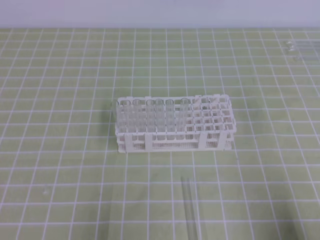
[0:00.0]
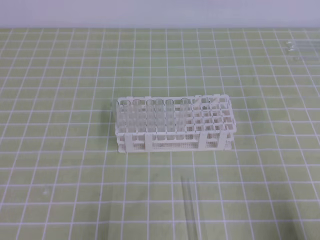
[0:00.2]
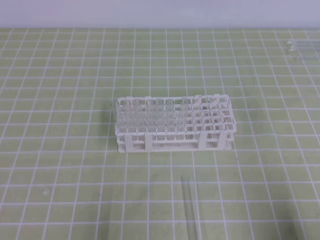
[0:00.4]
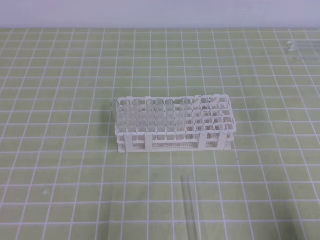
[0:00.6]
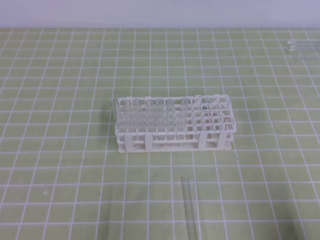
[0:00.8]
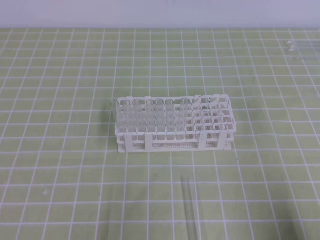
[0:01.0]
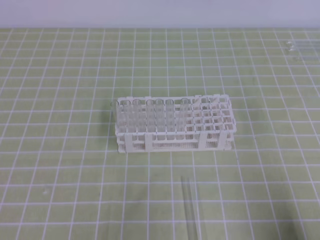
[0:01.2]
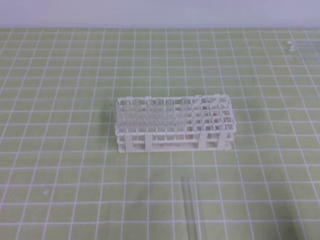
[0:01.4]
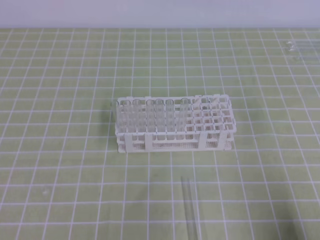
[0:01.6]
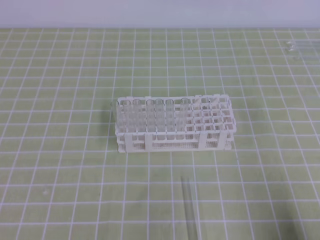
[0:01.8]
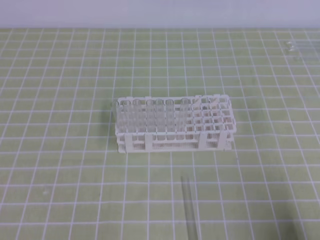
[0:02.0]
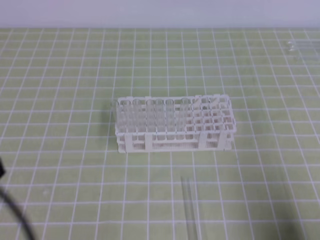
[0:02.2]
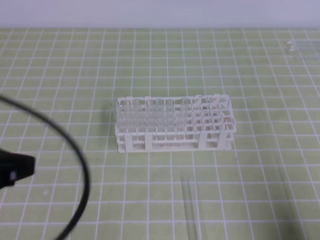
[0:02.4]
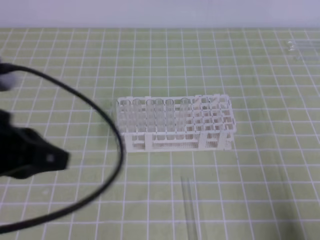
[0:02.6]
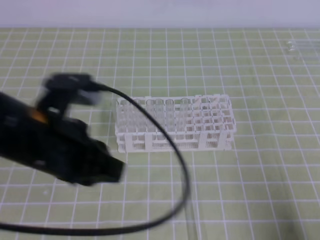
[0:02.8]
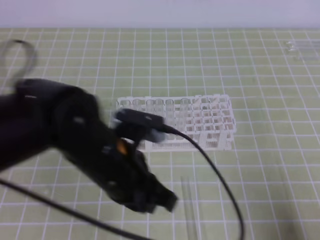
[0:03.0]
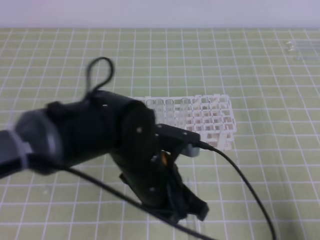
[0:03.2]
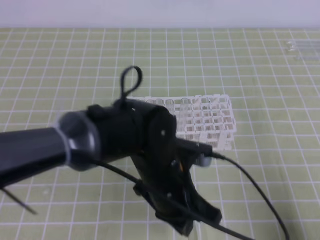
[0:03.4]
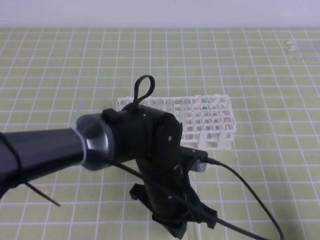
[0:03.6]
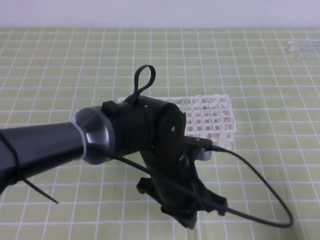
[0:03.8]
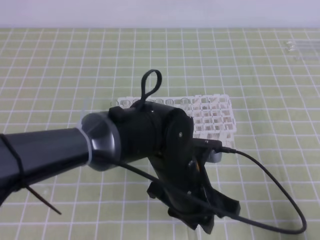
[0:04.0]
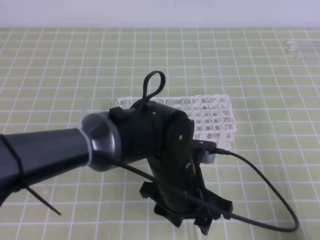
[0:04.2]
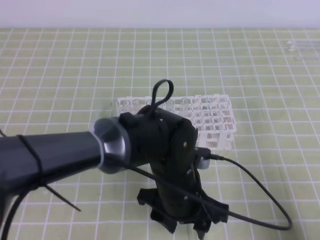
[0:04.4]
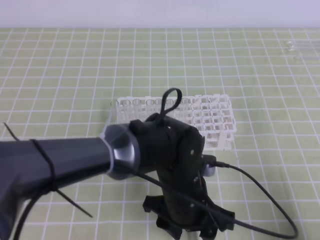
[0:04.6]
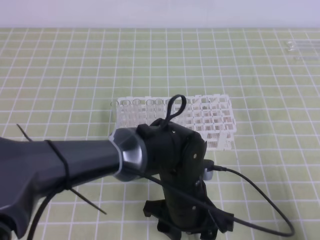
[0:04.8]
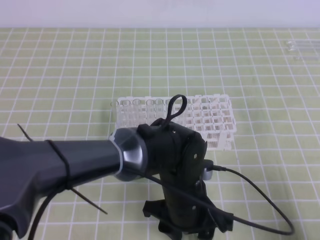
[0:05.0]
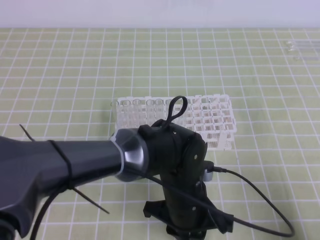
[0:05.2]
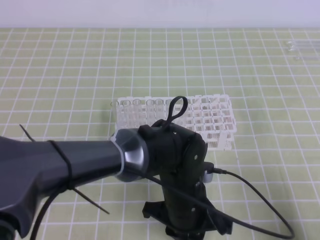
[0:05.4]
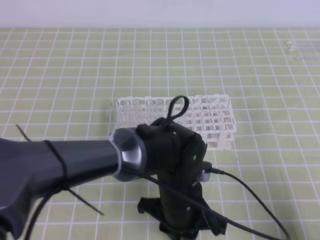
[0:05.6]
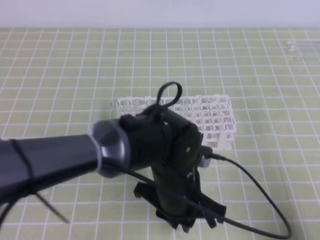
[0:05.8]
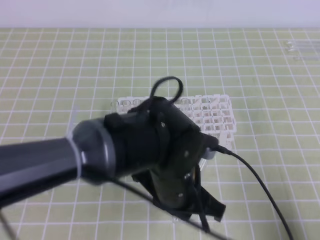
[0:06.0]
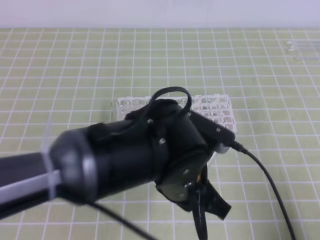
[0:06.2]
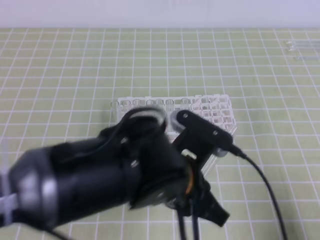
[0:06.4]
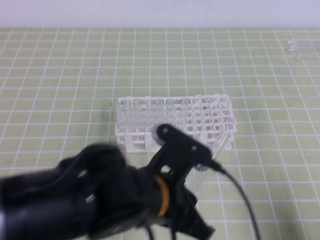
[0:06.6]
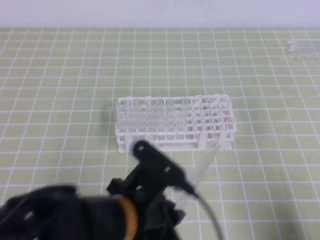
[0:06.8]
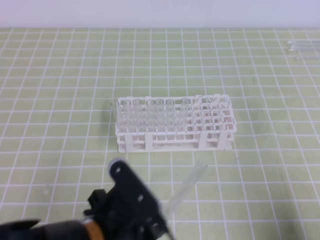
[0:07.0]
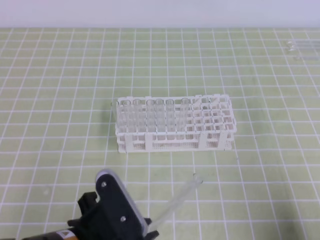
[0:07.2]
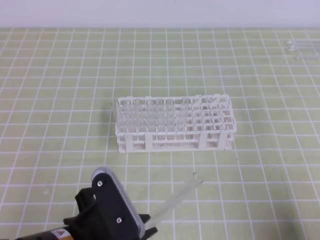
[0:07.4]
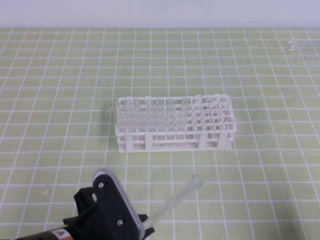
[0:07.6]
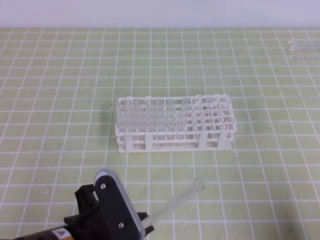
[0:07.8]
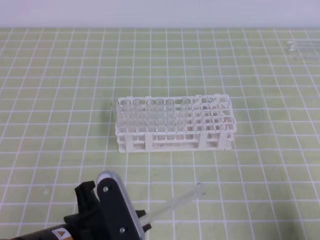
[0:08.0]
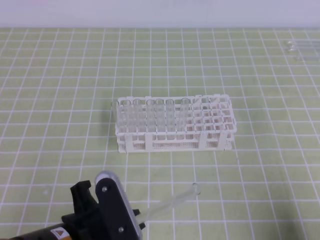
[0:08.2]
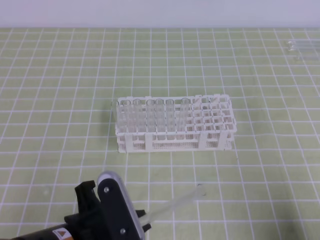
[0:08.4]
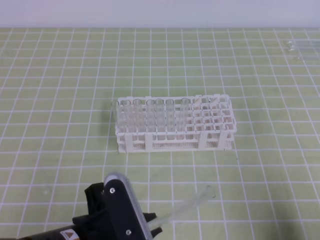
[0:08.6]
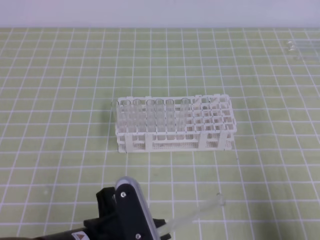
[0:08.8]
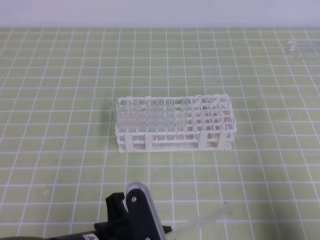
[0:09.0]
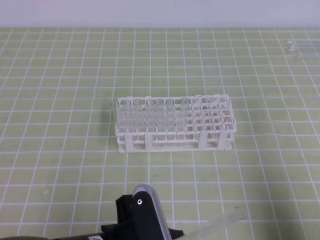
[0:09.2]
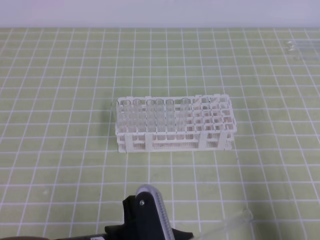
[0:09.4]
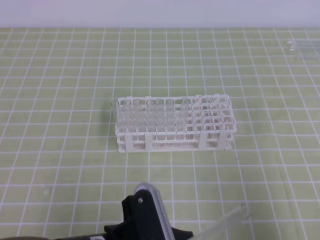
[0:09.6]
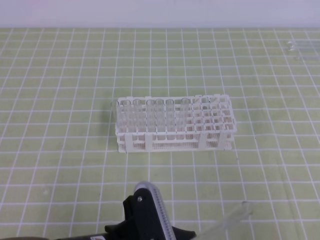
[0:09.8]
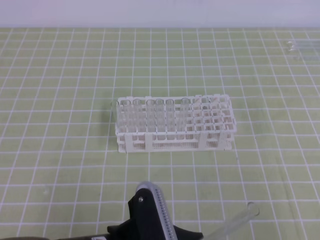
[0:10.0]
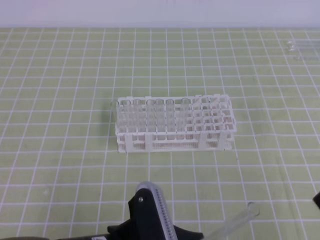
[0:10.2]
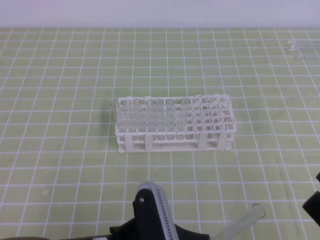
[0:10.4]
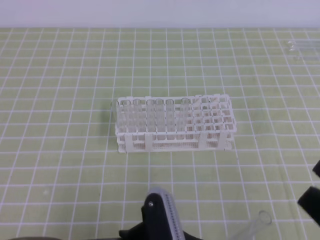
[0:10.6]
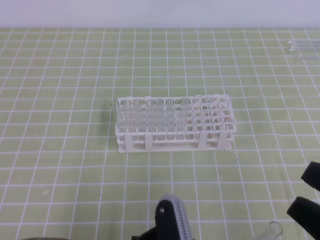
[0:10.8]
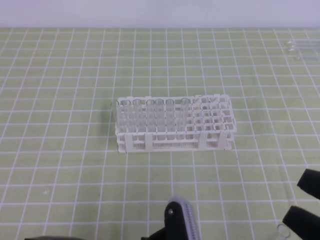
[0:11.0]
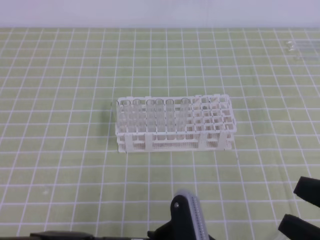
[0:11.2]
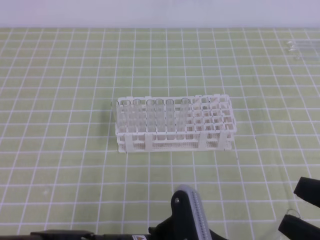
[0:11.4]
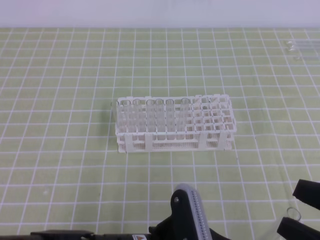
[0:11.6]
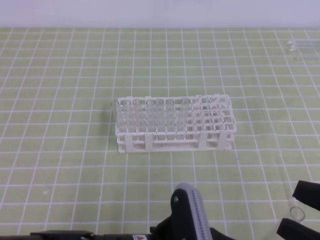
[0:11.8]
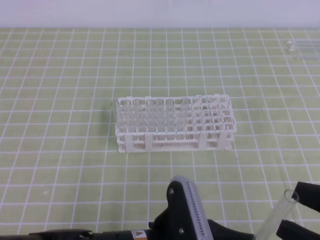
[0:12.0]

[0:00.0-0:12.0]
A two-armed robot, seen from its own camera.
0:01.6 to 0:03.0: The left gripper heads to the right and forward, covering some 25 cm.
0:03.0 to 0:04.4: The left gripper shifts about 15 cm to the right and downward, and opens.
0:04.4 to 0:06.0: The left gripper closes up.
0:06.0 to 0:07.6: The left gripper heads to the left and backward, covering about 15 cm.
0:09.0 to 0:10.4: The right gripper goes approximately 10 cm upward and to the left, and opens.
0:10.4 to 0:12.0: The grippers make only small movements.

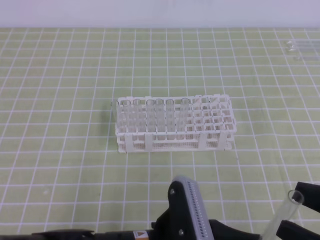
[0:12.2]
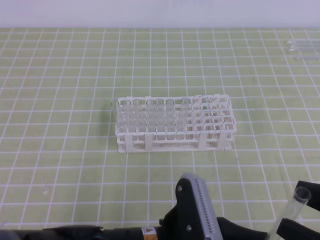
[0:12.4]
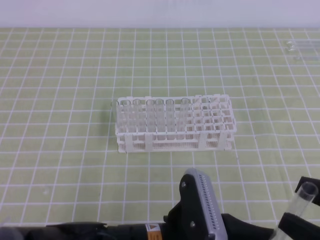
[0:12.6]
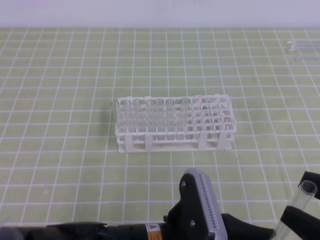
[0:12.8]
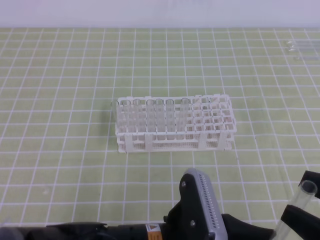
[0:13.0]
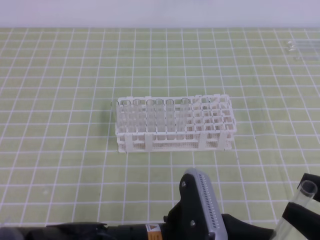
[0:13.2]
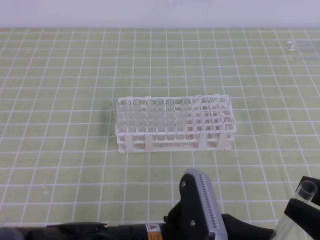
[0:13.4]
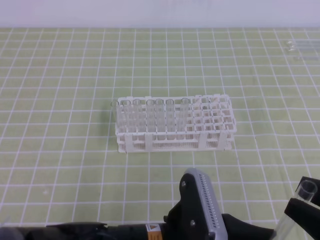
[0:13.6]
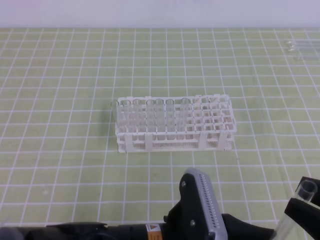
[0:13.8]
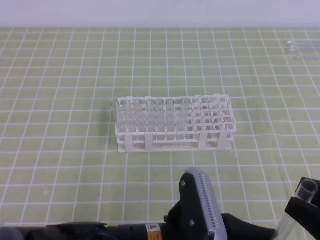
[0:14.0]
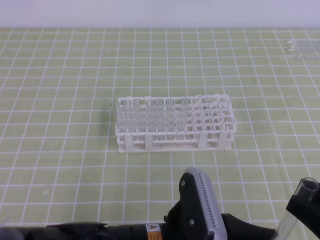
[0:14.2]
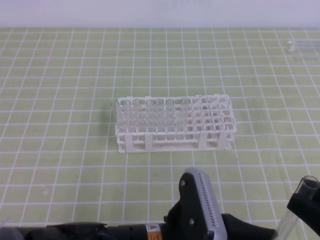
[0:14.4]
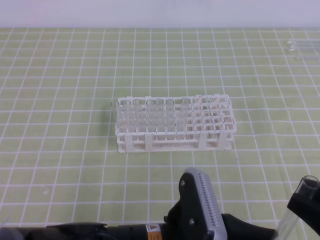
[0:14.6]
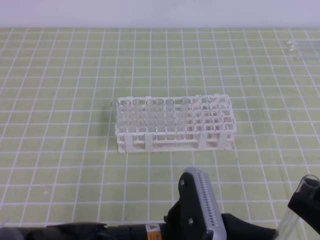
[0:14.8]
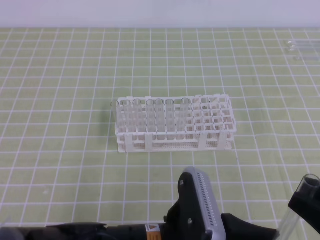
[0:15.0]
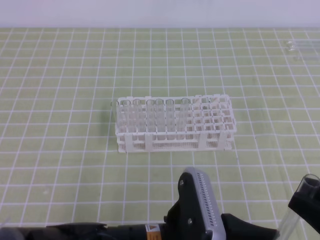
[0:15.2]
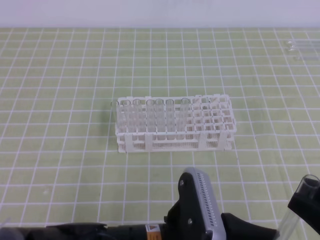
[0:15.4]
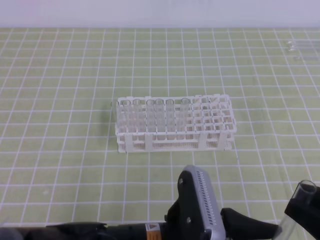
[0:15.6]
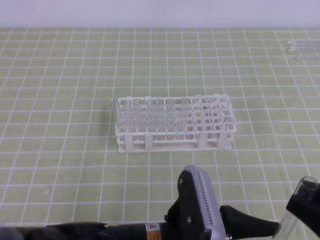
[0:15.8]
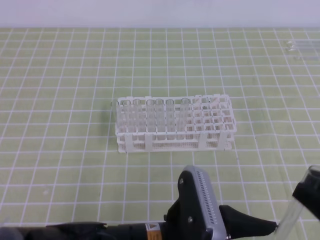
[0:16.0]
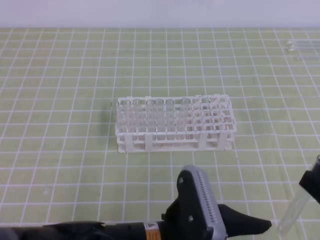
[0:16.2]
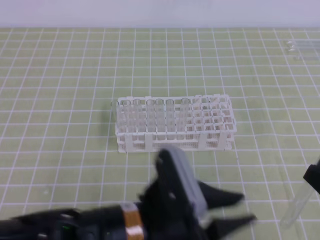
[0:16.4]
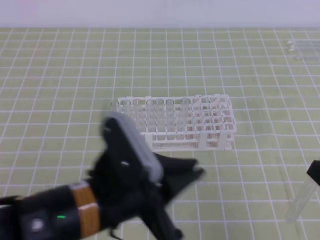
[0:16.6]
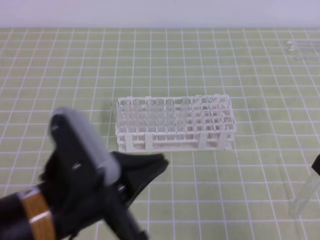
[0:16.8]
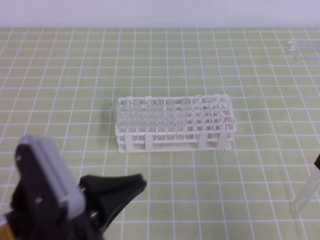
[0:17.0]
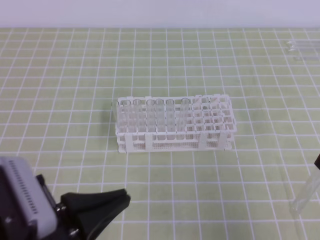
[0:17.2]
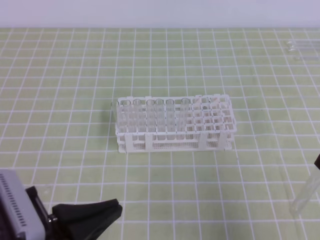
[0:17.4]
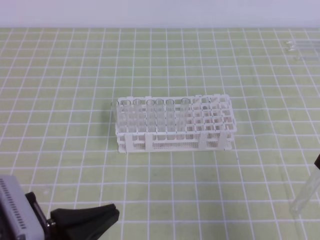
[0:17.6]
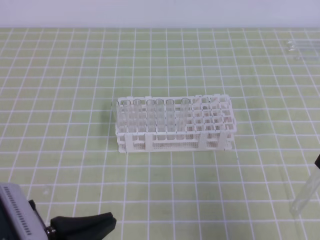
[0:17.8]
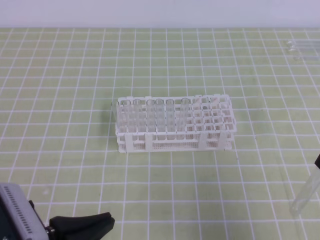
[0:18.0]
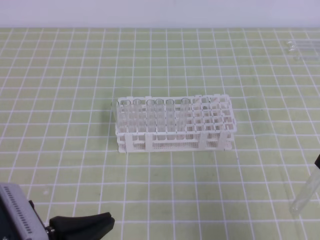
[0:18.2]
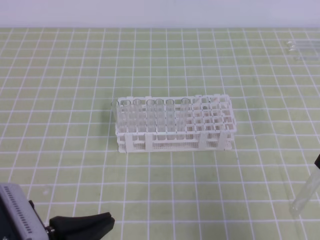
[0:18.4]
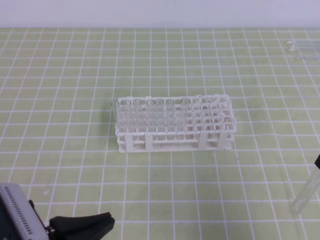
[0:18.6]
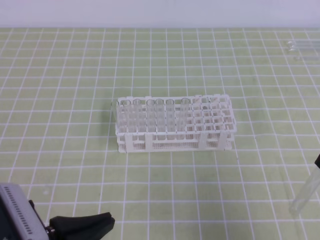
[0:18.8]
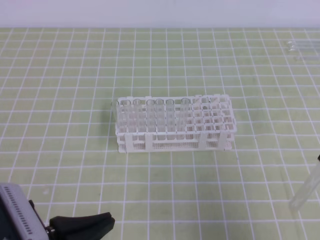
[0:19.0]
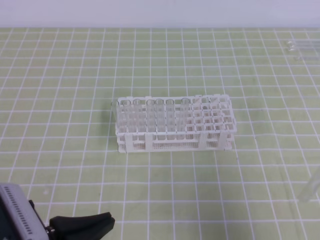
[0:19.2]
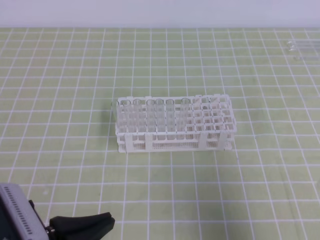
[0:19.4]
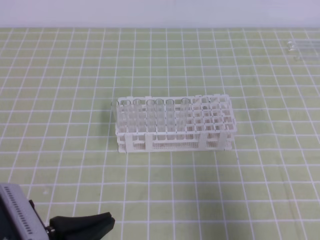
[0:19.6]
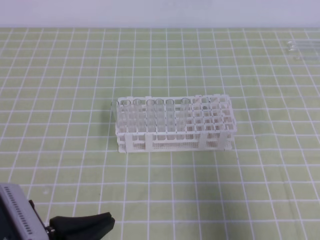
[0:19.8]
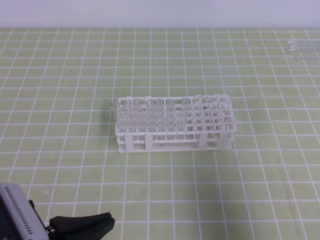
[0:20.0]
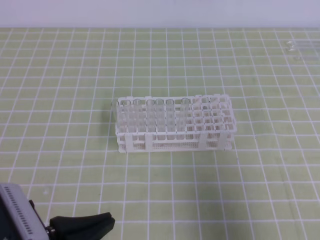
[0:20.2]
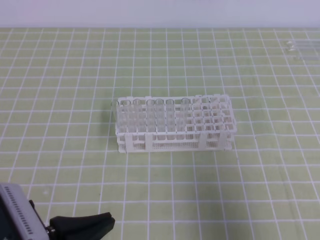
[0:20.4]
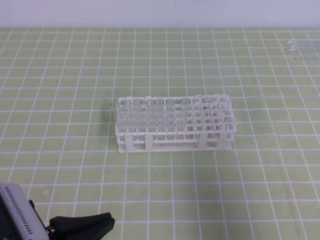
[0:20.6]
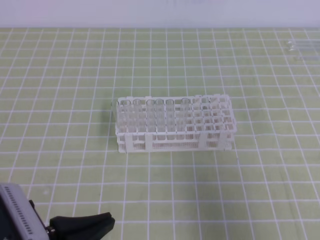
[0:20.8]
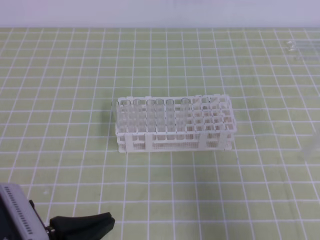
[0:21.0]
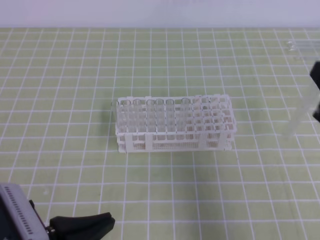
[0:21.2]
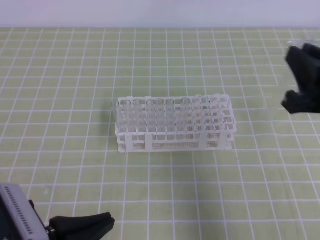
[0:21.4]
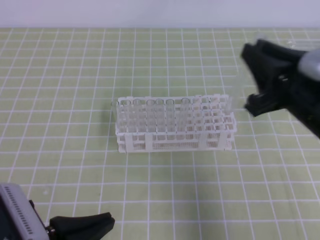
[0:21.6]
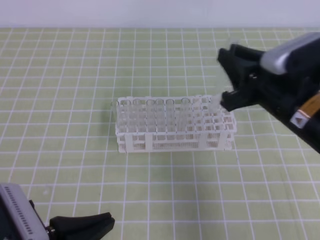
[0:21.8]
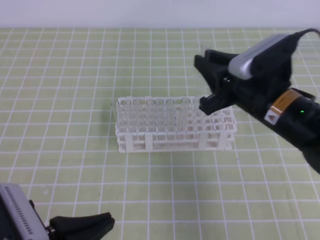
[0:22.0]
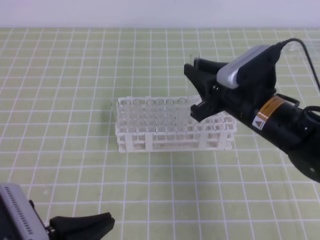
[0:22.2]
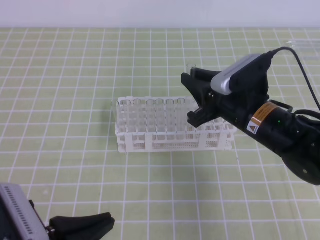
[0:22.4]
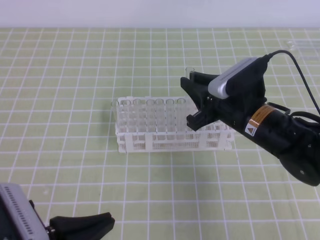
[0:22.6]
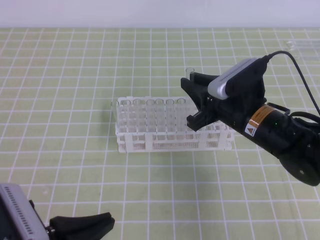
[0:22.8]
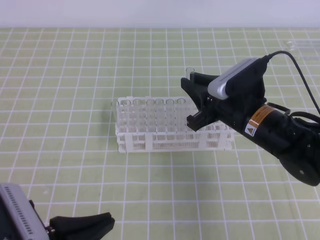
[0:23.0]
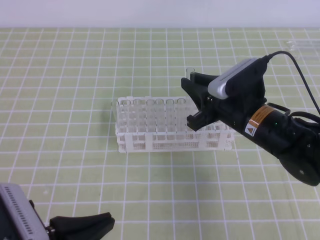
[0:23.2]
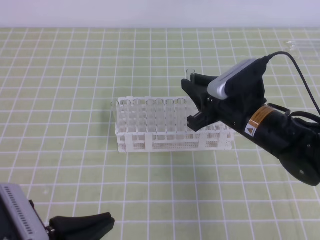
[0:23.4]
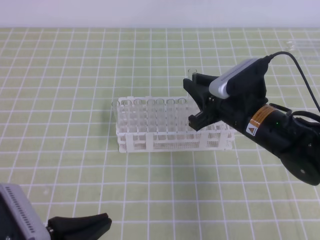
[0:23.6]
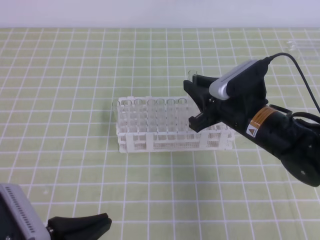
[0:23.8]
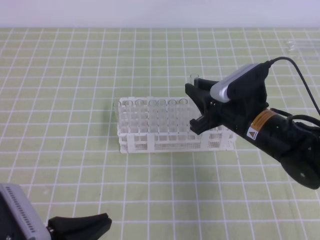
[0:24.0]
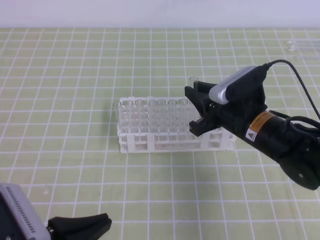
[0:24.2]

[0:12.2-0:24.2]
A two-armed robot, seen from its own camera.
0:12.2 to 0:13.8: The right gripper closes up.
0:13.8 to 0:15.2: Both grippers stay put.
0:15.2 to 0:16.6: The left gripper shifts some 5 cm to the left, and opens, then closes again.
0:16.6 to 0:18.2: The left gripper goes roughly 10 cm to the left.
0:19.8 to 0:21.2: The right gripper travels forward by approximately 10 cm.
0:21.2 to 0:22.6: The right gripper is displaced forward, to the left and downward by approximately 20 cm.
0:22.6 to 0:24.2: The grippers make only small movements.
